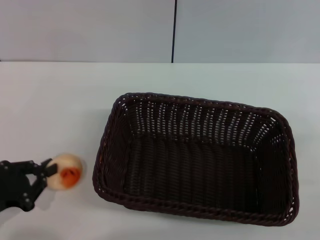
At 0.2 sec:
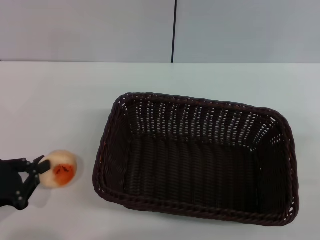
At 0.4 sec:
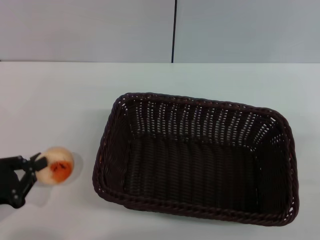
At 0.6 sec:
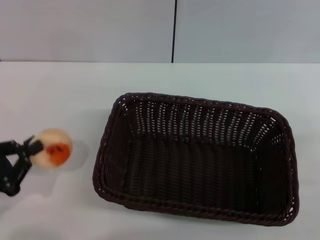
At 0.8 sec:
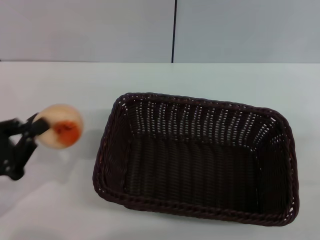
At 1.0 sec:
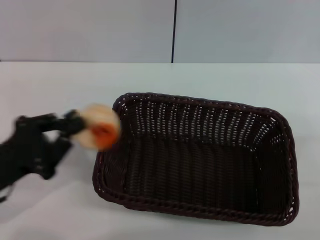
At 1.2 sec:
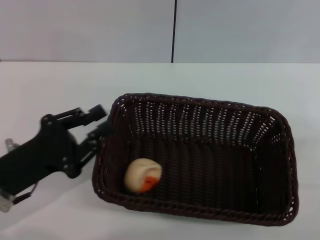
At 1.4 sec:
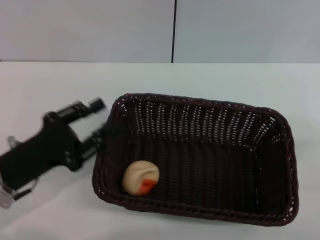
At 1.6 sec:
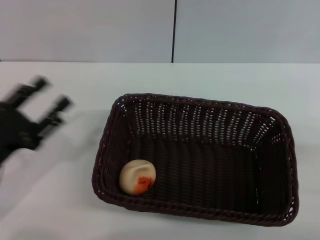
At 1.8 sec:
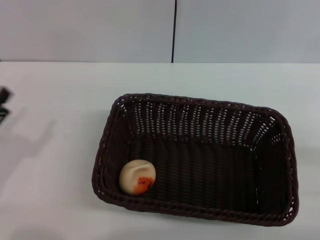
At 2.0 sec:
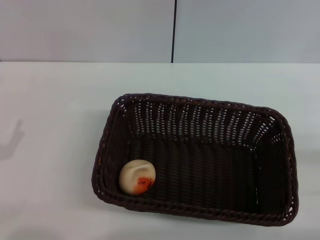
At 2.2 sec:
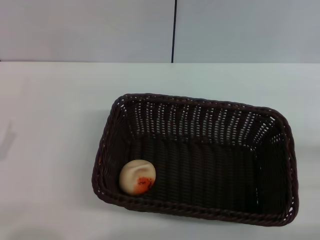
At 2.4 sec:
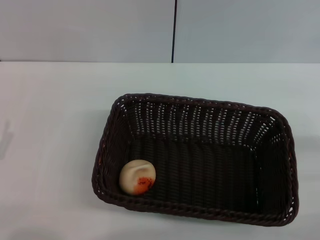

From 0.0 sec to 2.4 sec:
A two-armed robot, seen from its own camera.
Step, from 0.6 sec to 1.6 sec: Place the egg yolk pastry into the basket with the left gripper.
From 0.0 sec to 1.2 sec: The left gripper heads to the right, covering approximately 5 cm.
From 1.2 sec to 2.4 sec: The left gripper moves to the left and backward, approximately 10 cm, and opens its fingers.

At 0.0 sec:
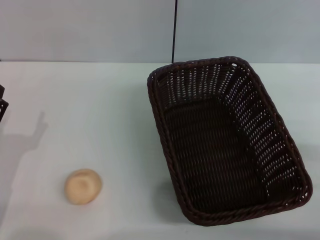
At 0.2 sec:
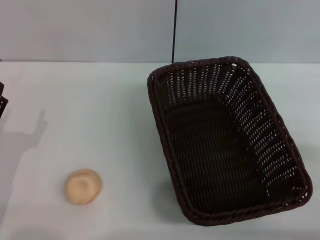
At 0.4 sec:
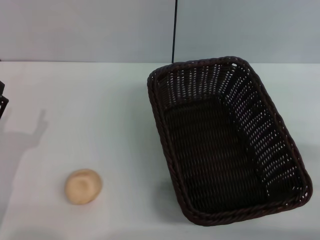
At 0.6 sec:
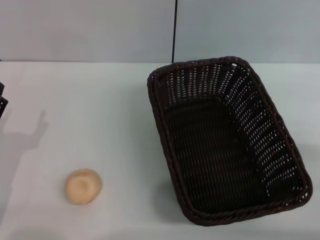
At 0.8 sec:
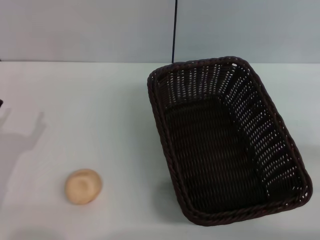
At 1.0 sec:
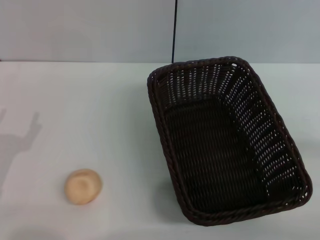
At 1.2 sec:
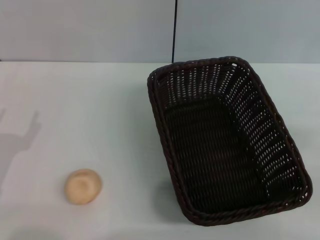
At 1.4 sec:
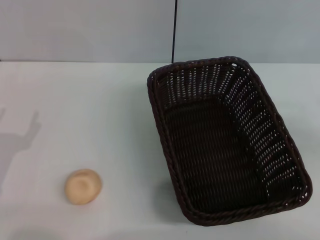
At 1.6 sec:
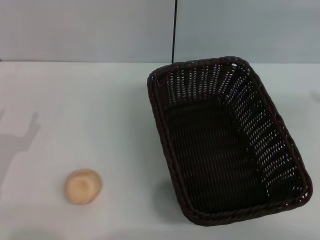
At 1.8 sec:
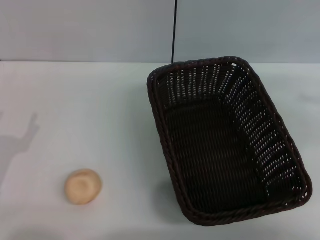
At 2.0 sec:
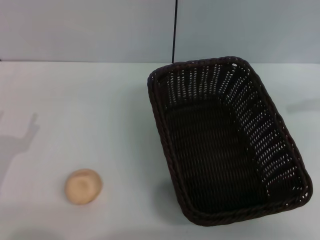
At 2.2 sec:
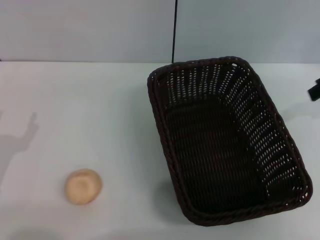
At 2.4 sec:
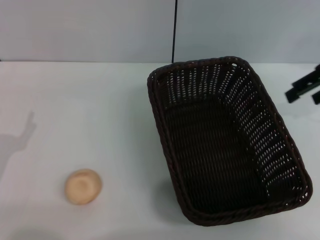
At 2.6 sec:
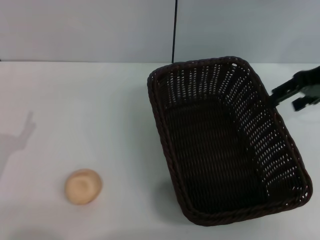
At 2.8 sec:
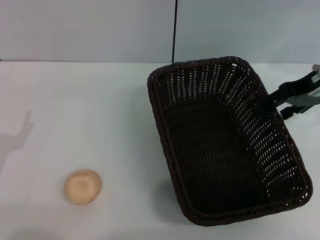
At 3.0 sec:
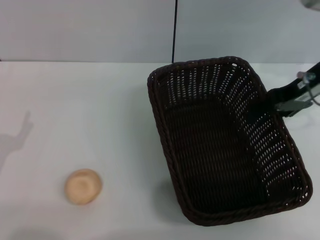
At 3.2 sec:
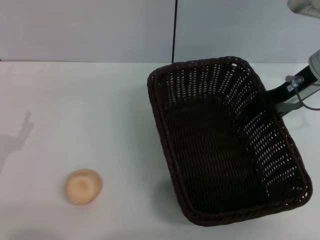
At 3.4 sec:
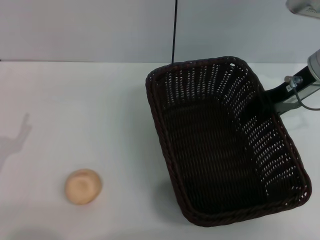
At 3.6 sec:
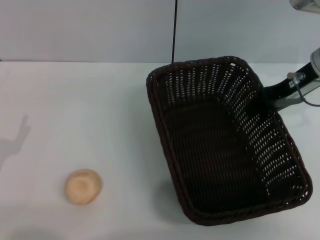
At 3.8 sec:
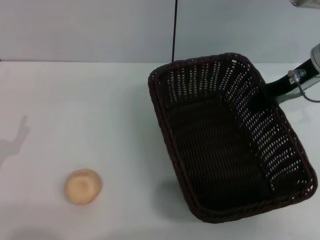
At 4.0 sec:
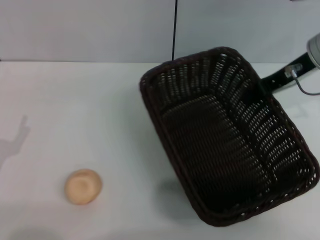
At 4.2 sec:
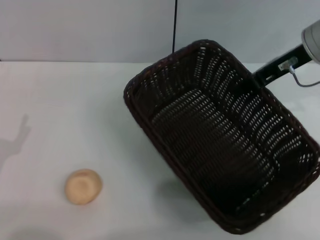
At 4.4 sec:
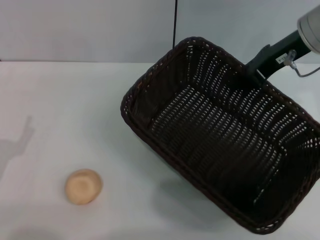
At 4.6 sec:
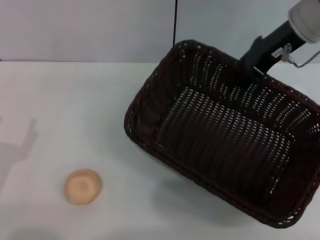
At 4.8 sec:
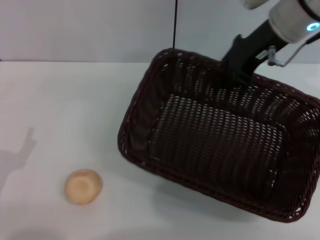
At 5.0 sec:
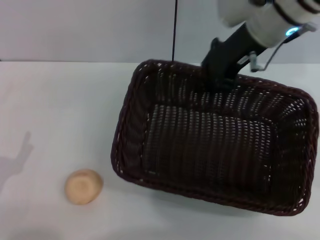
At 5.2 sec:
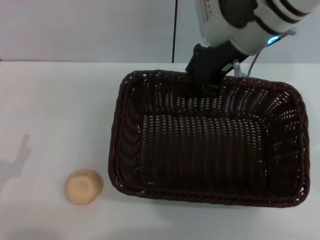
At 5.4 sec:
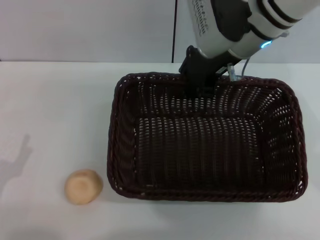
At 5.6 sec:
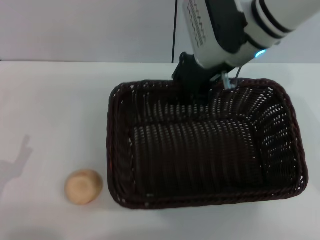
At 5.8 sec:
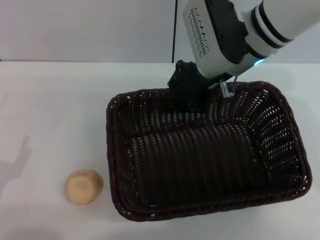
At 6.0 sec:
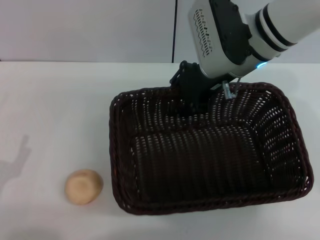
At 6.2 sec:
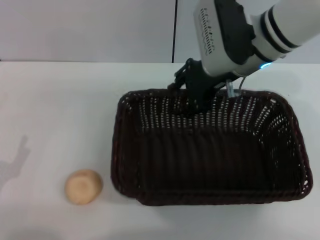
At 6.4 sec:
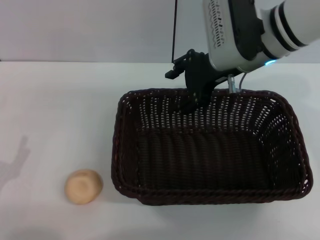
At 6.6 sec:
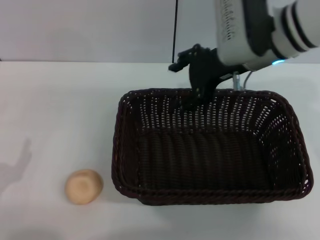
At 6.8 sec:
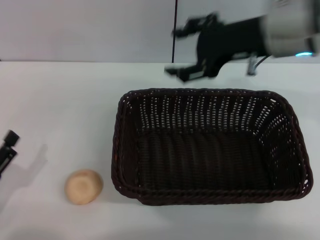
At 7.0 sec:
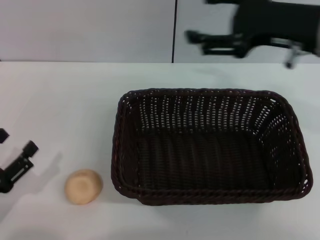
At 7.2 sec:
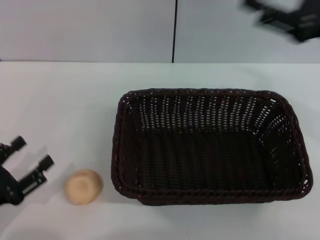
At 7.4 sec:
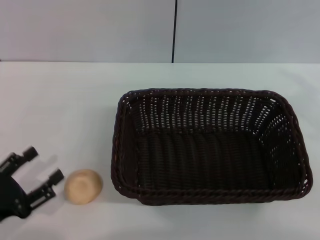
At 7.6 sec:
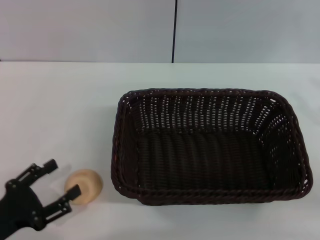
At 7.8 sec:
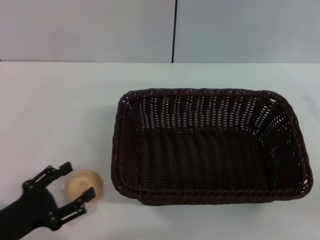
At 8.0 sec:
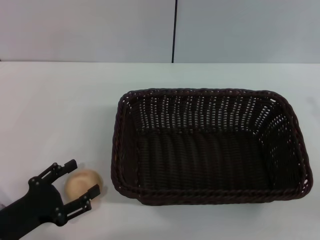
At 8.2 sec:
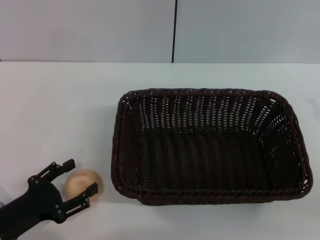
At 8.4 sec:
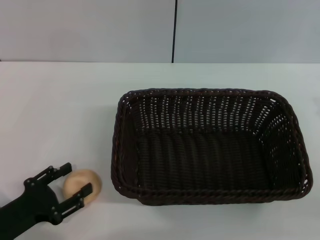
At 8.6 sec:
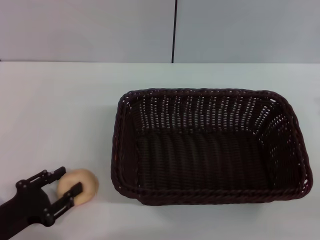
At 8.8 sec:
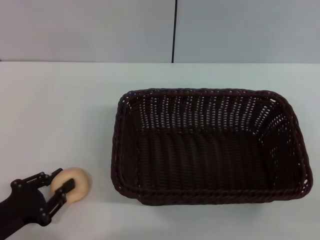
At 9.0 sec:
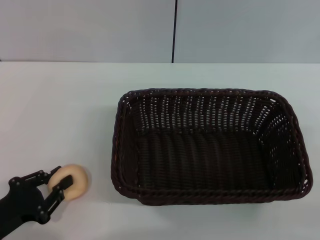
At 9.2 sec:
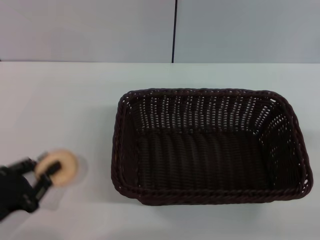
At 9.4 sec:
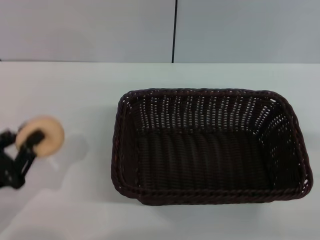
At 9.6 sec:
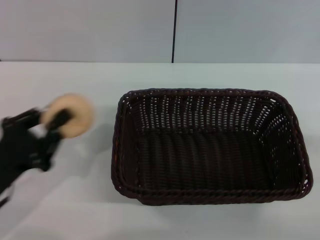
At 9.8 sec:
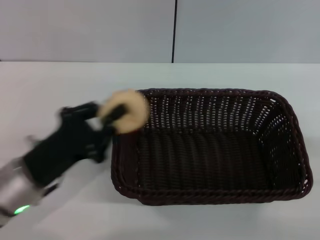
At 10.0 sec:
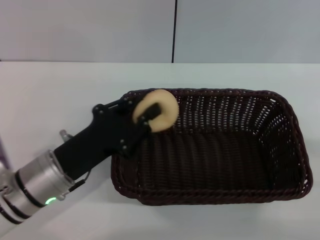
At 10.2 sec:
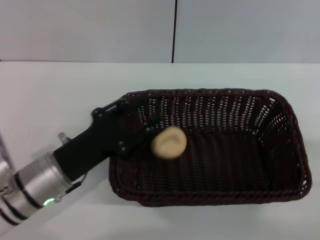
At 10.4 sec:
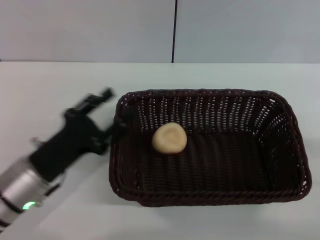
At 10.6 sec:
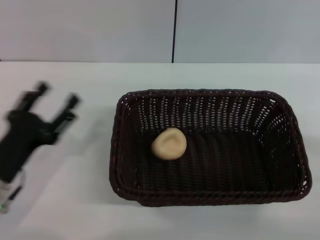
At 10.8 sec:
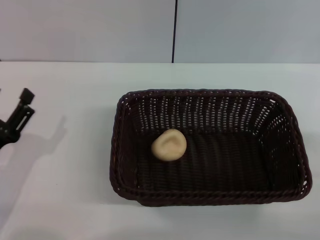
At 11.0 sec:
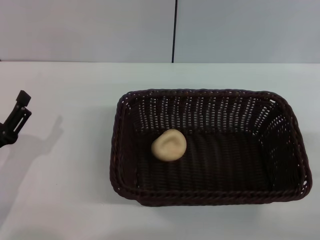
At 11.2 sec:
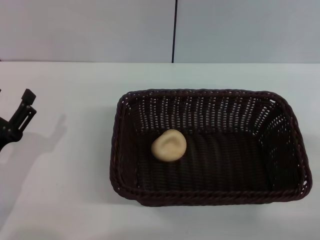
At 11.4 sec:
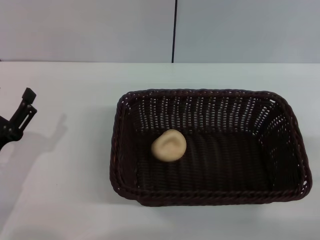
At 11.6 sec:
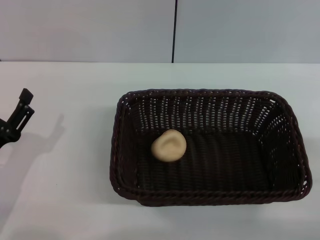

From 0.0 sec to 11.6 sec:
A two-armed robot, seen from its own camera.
Step, from 0.0 sec to 6.6 sec: Move the basket to the center of view with the right gripper.
Step, from 6.8 sec to 9.2 sec: Pick up the egg yolk pastry with the left gripper.
Step, from 9.4 sec to 10.2 sec: Place the egg yolk pastry into the basket with the left gripper.
From 1.4 sec to 2.8 sec: The right gripper heads to the left and forward, covering about 25 cm.
From 2.8 sec to 4.4 sec: The right gripper is displaced to the left by roughly 5 cm, and closes up.
From 4.4 sec to 5.8 sec: The right gripper is displaced to the left by approximately 10 cm.
From 5.8 sec to 7.2 sec: The right gripper moves to the right and backward, about 20 cm, and opens up.
From 7.2 sec to 8.8 sec: The left gripper closes its fingers. Meanwhile the right gripper goes about 15 cm downward, to the right and backward.
From 8.8 sec to 10.2 sec: The left gripper moves to the right and forward, about 15 cm.
From 10.2 sec to 11.6 sec: The left gripper shifts about 10 cm to the left, and opens up.
